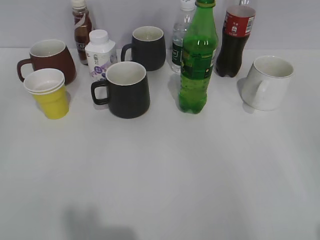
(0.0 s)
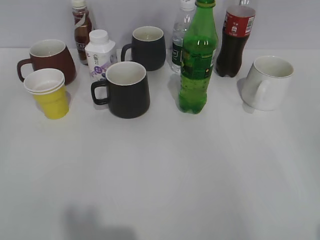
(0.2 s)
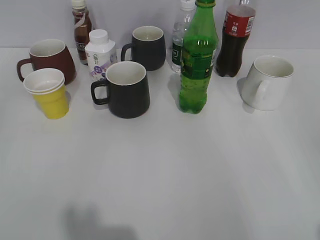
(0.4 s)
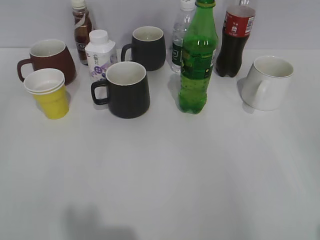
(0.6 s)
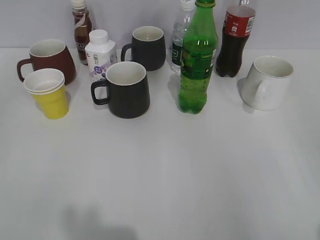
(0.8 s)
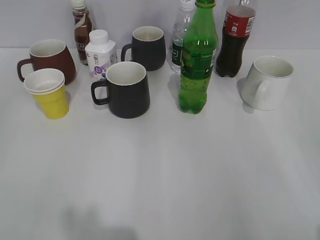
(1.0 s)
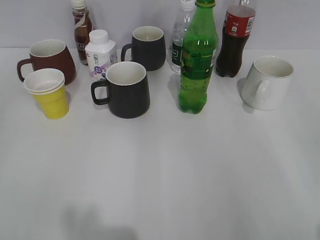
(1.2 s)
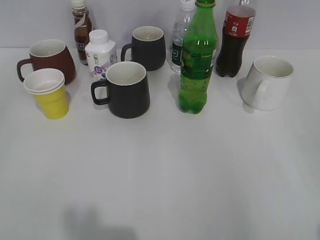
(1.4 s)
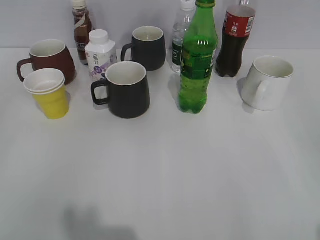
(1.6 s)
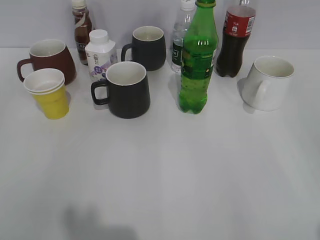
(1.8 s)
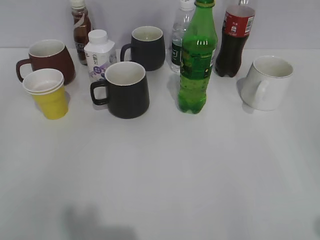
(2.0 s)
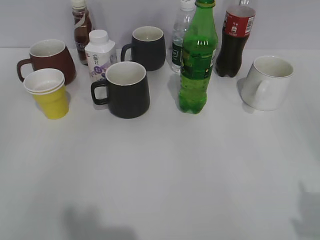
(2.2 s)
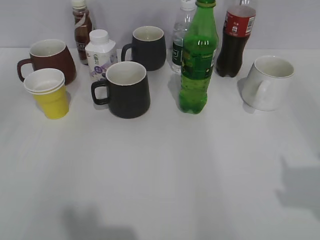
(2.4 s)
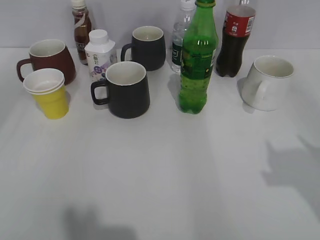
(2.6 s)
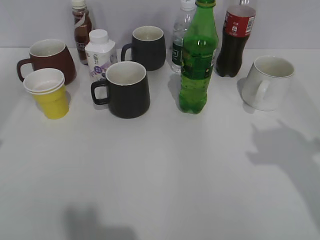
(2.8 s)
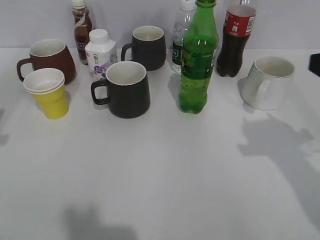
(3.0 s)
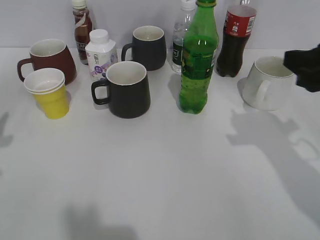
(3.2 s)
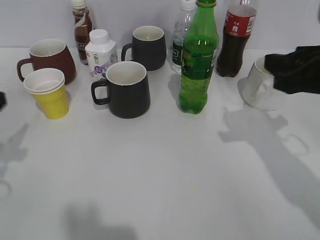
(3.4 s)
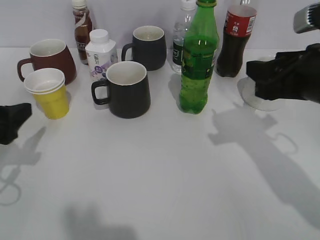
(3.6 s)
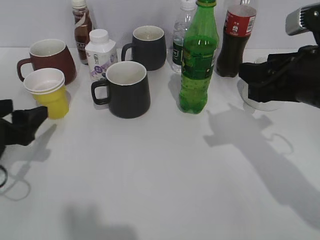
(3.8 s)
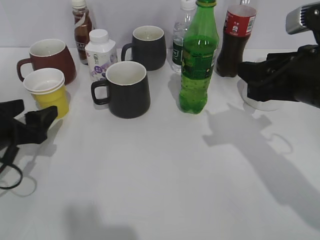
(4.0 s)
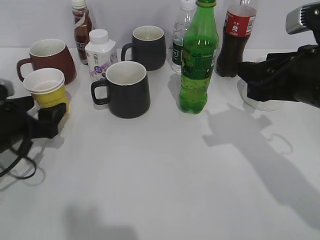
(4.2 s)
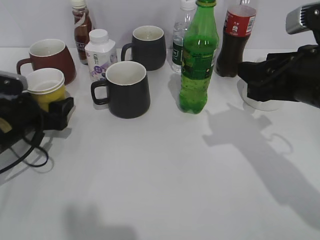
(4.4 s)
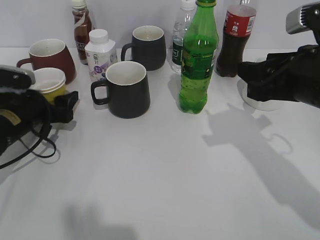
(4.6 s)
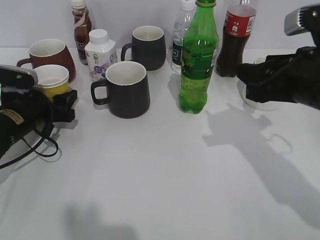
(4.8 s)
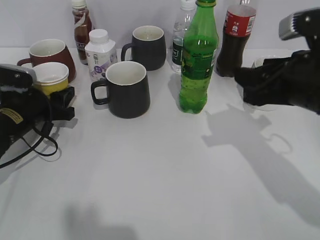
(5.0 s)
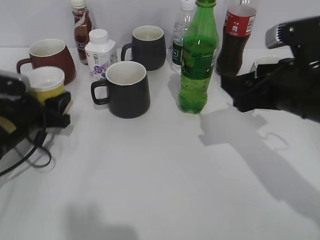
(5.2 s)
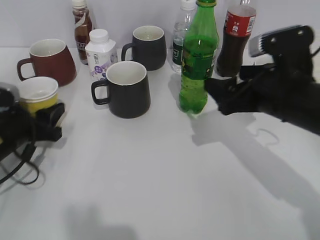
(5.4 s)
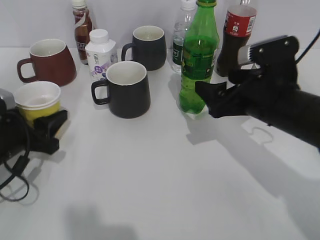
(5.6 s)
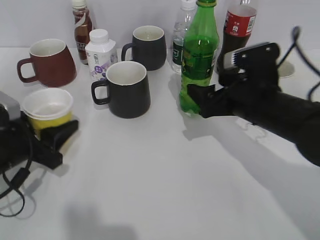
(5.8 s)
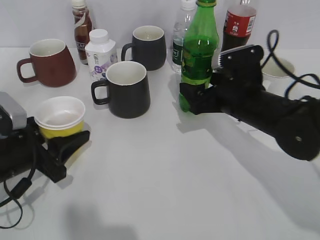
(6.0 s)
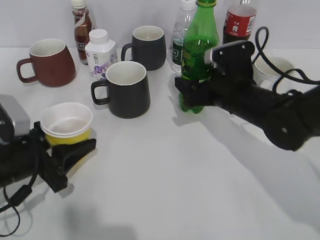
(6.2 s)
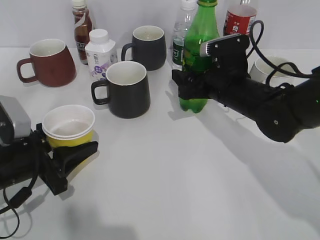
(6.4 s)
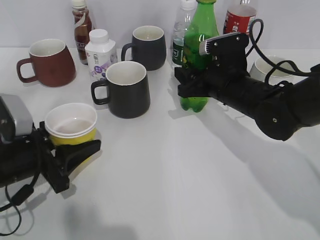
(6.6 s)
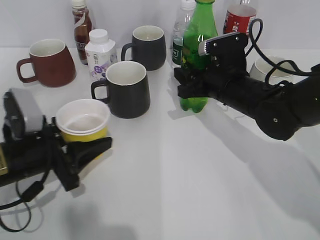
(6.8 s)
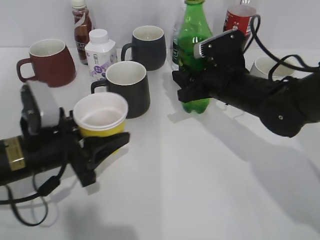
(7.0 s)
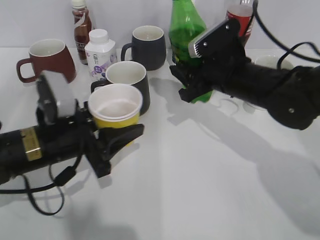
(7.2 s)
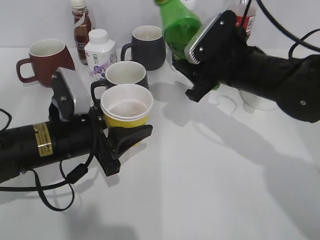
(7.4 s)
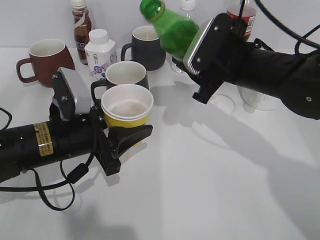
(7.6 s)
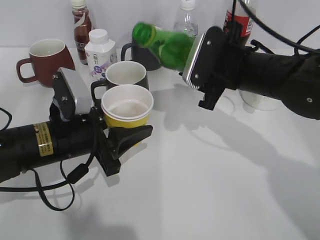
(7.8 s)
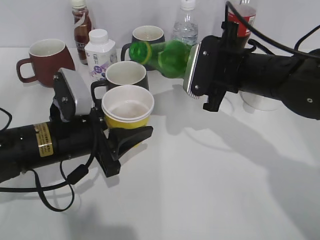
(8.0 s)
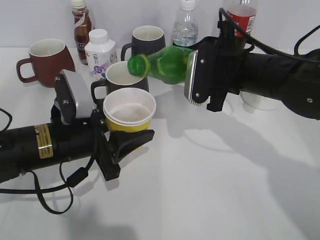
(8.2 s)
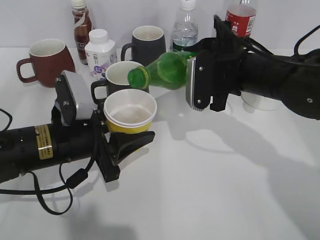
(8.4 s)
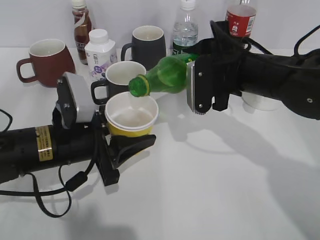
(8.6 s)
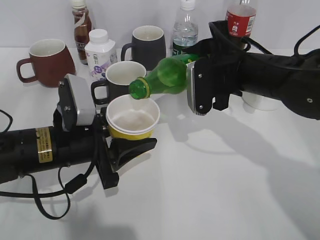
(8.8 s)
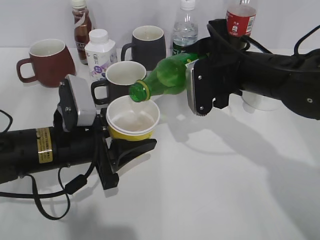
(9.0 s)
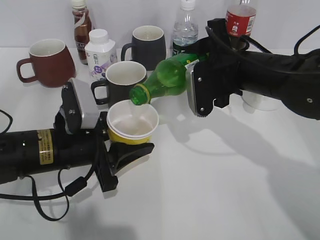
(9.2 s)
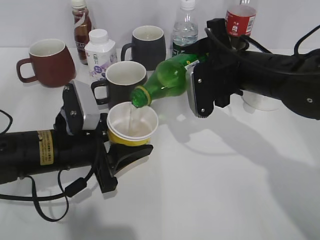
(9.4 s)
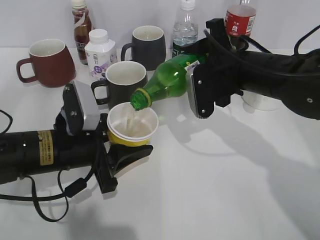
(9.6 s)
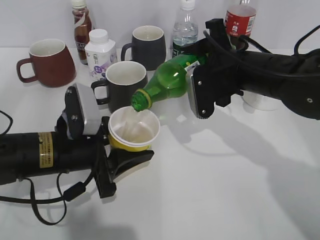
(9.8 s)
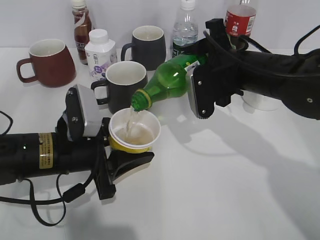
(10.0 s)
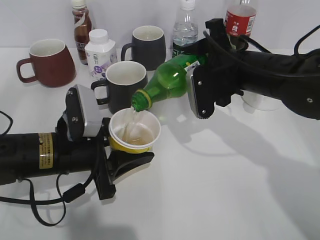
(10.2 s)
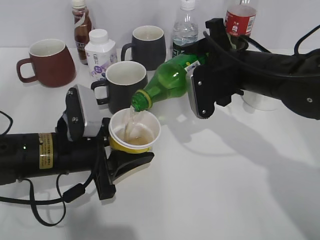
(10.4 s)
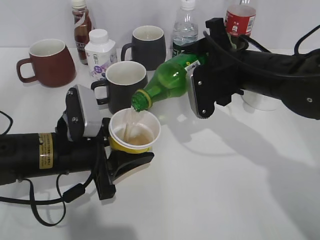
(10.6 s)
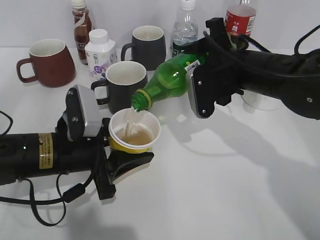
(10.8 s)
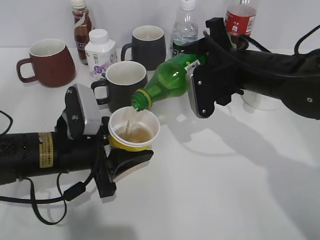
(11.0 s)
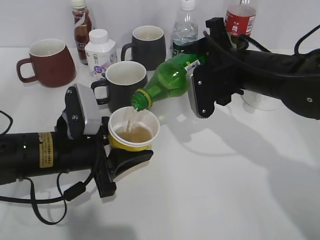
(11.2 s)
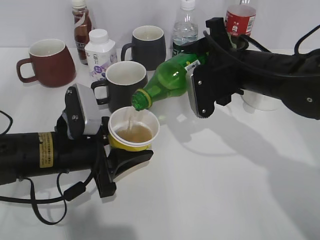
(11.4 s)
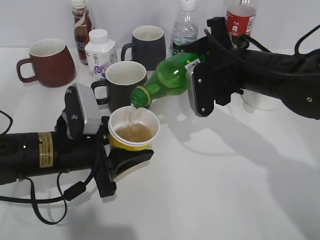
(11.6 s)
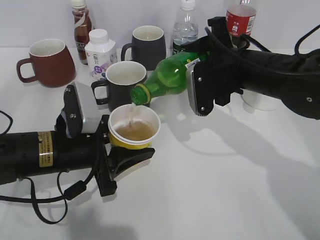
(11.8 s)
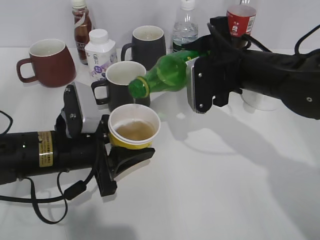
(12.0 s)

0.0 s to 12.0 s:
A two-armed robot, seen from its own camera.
Step, 2.0 to 4.8 s: Grasp the yellow paper cup with left gripper.
Step, 5.0 to 6.6 s: Grasp the bottle with sprite with right gripper.
1.6 to 3.0 s: The right gripper shifts about 20 cm forward, and closes its fingers.
3.0 to 4.4 s: The left gripper shifts approximately 20 cm downward, forward and to the right, and opens up; the right gripper is displaced to the left by roughly 5 cm.
4.4 to 6.0 s: The right gripper heads downward, forward and to the left, covering about 15 cm, and opens, while the left gripper shifts approximately 5 cm backward, and closes.
6.0 to 7.6 s: The left gripper goes approximately 10 cm to the right, while the right gripper heads upward, covering about 5 cm, and closes up.
9.0 to 12.0 s: The grippers stay close to where they were, moving slightly.

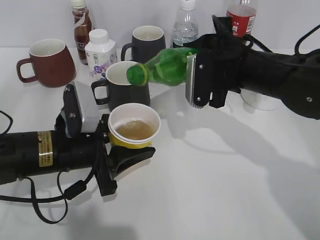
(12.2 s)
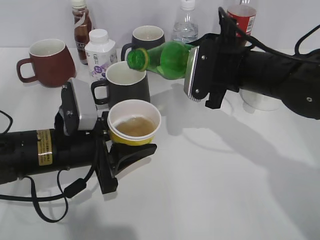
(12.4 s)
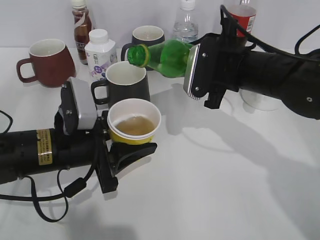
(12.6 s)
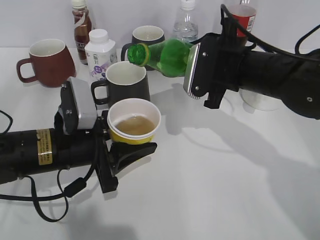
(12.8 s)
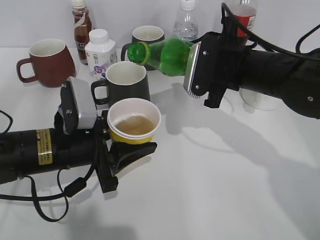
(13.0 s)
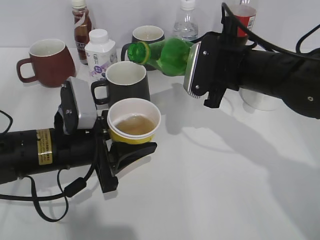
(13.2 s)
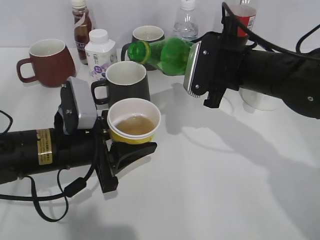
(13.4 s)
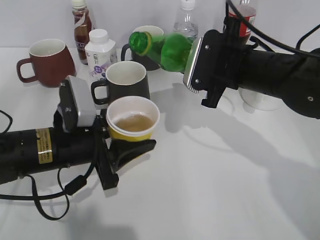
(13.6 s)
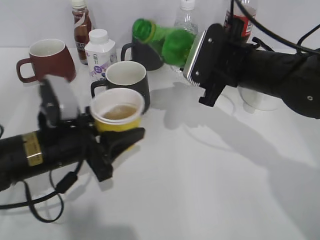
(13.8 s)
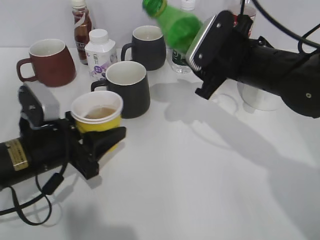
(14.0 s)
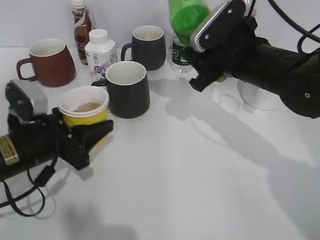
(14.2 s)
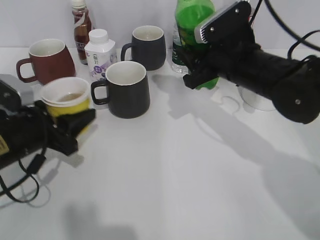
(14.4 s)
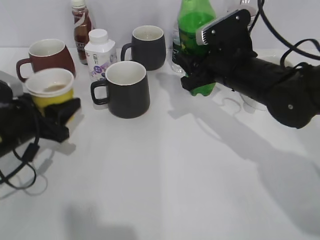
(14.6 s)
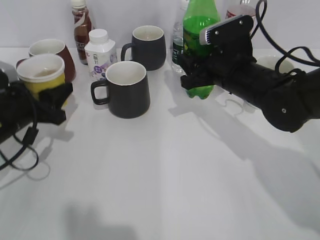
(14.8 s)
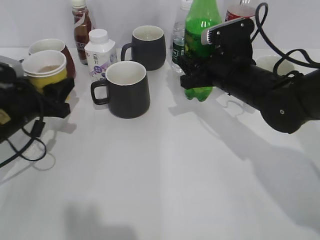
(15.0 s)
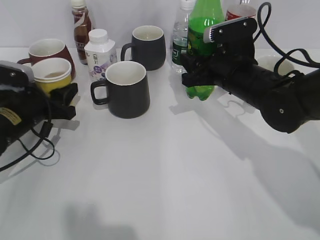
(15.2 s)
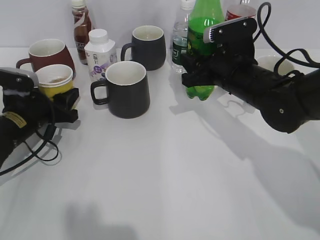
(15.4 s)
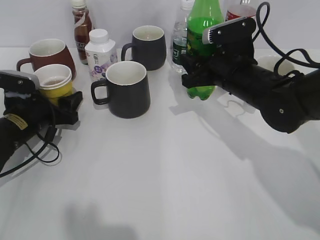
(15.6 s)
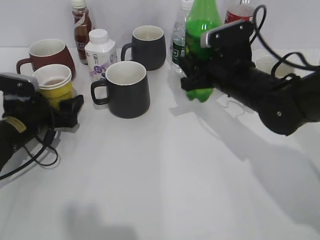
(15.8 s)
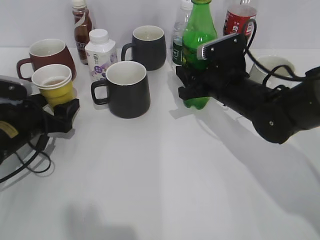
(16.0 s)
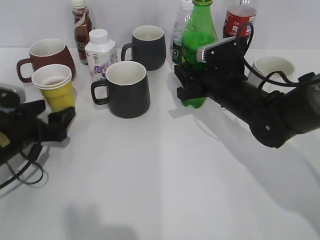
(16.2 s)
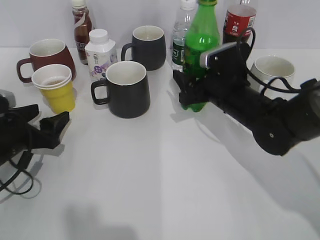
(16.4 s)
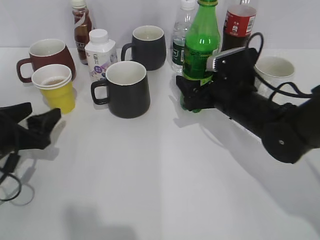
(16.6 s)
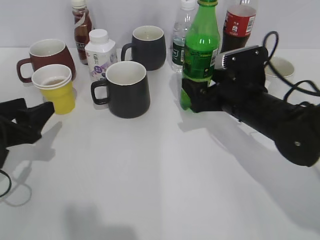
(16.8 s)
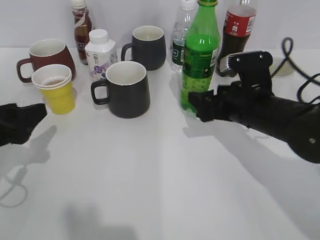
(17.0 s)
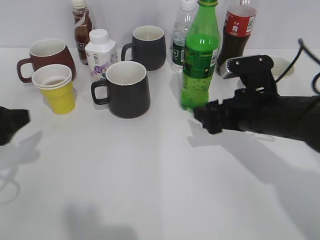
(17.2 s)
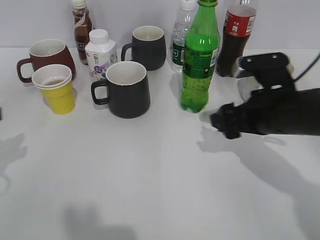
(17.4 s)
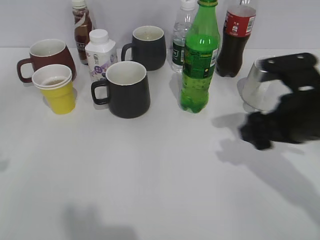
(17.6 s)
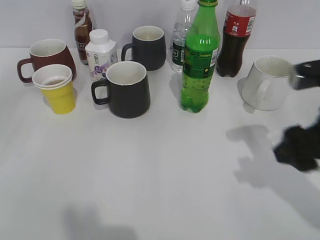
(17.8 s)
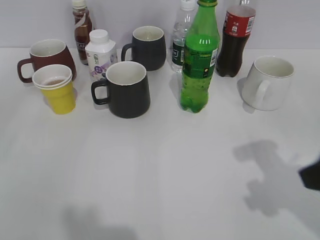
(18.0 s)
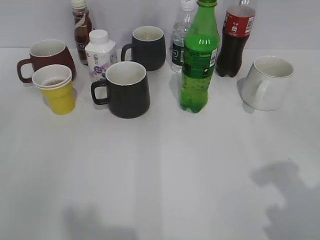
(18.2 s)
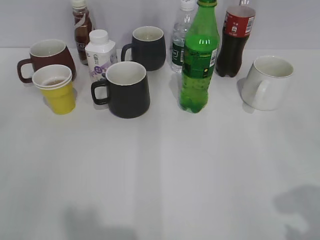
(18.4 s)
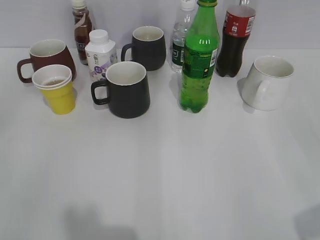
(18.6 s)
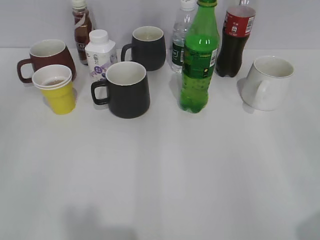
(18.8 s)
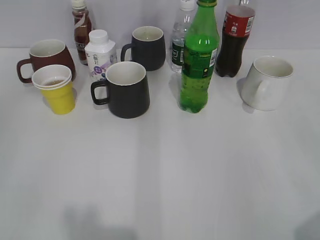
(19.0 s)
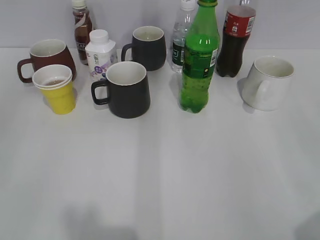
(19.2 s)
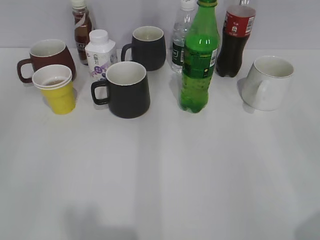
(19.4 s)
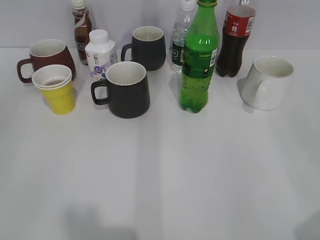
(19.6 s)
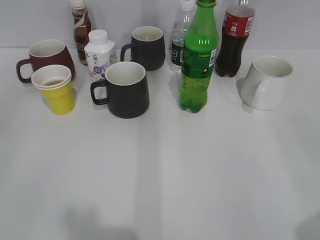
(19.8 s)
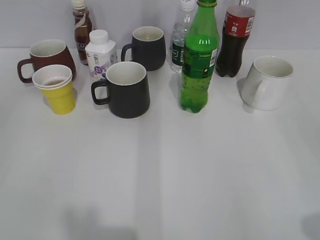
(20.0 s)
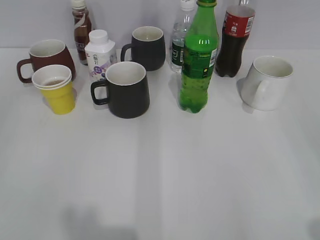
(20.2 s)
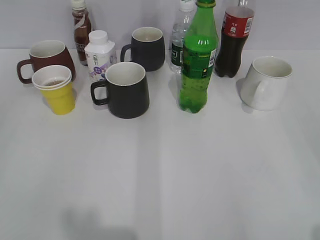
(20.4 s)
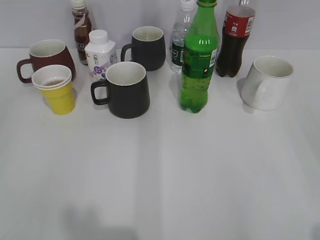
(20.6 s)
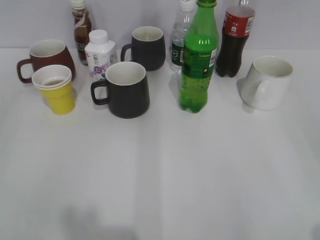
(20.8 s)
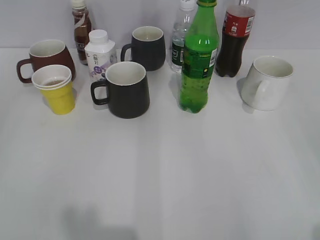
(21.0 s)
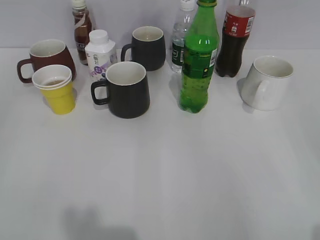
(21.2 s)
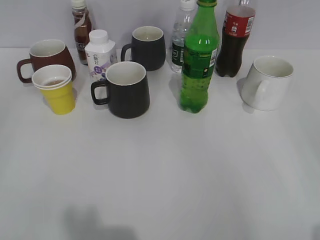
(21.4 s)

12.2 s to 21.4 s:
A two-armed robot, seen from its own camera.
Step, 12.2 to 14.6 s: Place the yellow paper cup on the table with left gripper.
Step, 14.8 to 17.2 s: Place the sprite bottle on the table with right gripper.
13.8 to 15.2 s: The left gripper shifts approximately 10 cm forward and to the left.
15.2 to 16.8 s: The left gripper is displaced backward by roughly 10 cm, and opens, while the right gripper opens its fingers.
16.8 to 18.4 s: The left gripper heads backward and upward, covering some 25 cm; the right gripper travels backward, upward and to the right by roughly 30 cm.
18.4 to 19.8 s: The grippers move only a little.

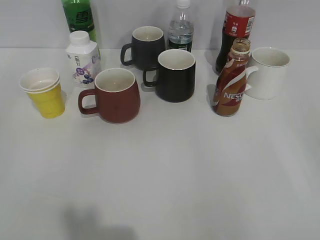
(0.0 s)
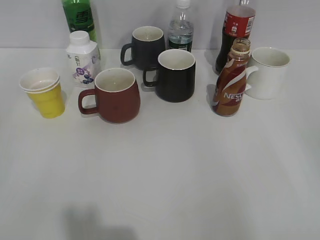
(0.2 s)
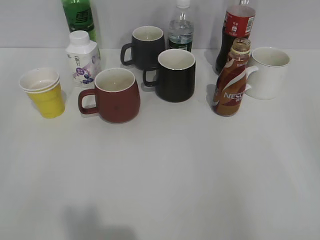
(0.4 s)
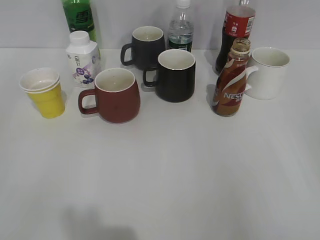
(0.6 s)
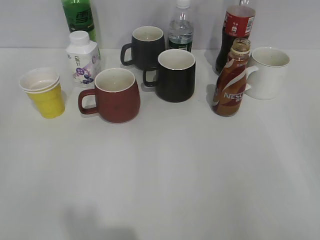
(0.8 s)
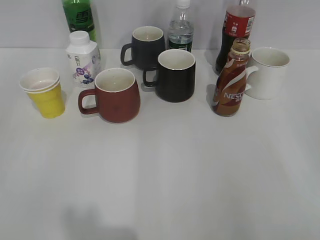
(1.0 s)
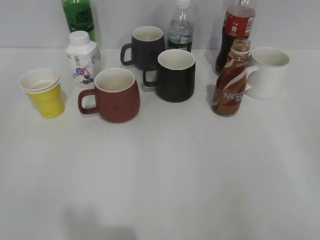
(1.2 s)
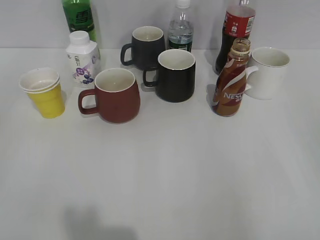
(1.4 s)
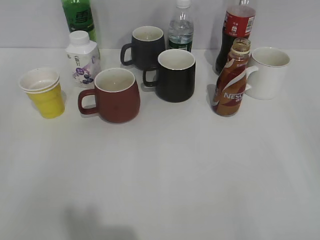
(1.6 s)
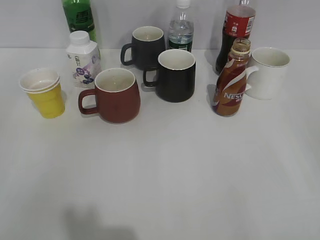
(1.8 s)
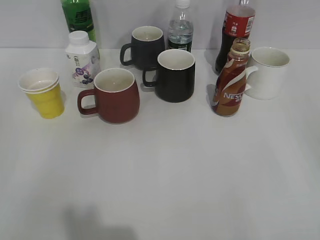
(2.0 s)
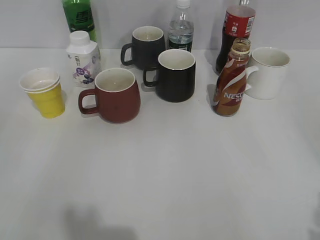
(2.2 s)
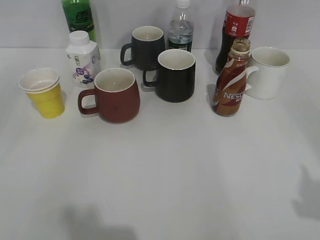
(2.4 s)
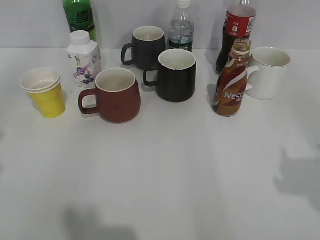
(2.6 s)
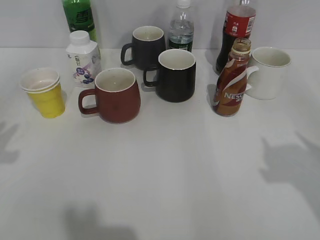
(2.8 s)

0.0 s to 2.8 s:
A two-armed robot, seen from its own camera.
1.4 to 2.8 s: The right gripper goes about 10 cm forward.
